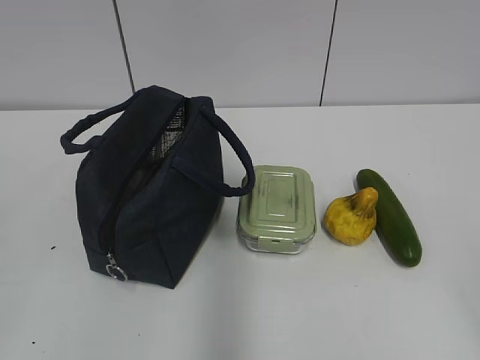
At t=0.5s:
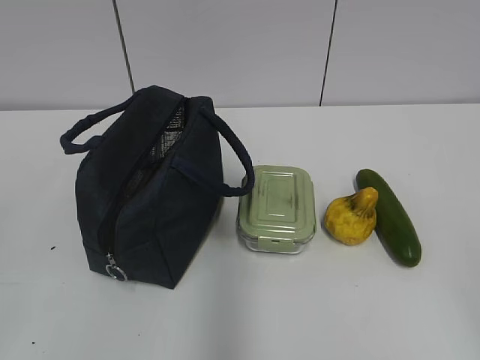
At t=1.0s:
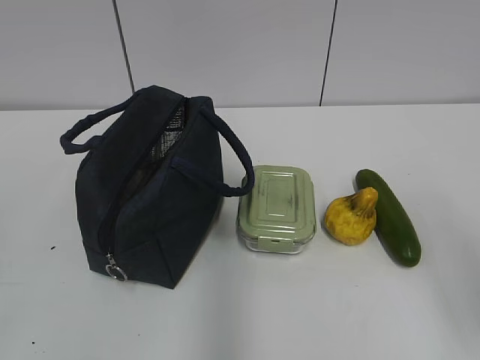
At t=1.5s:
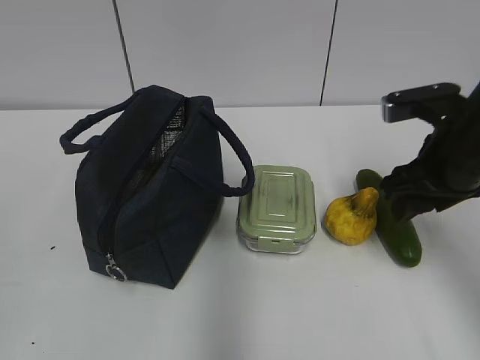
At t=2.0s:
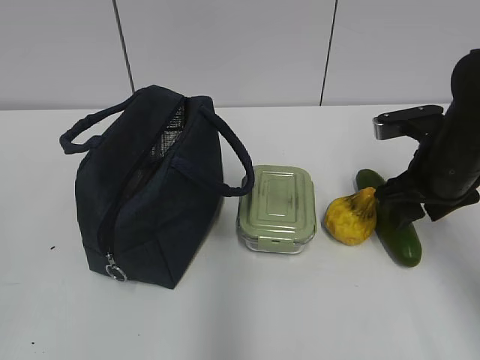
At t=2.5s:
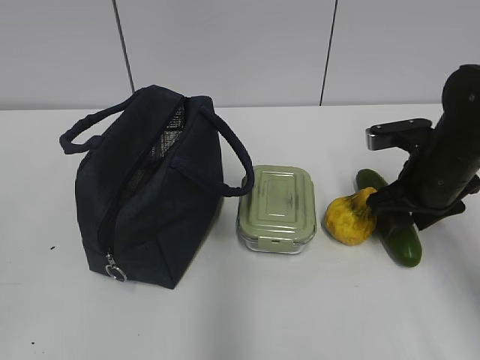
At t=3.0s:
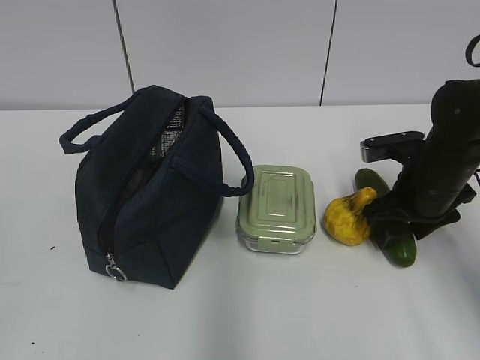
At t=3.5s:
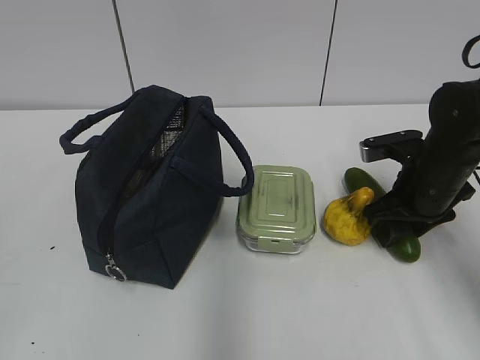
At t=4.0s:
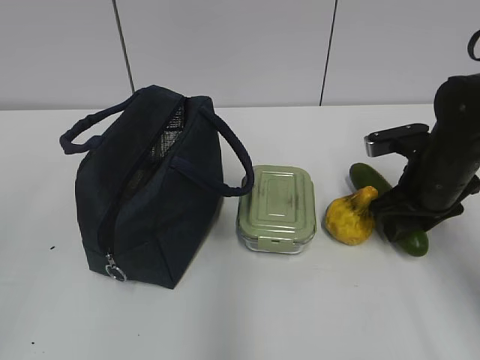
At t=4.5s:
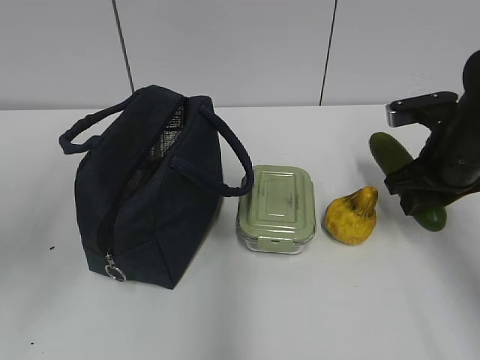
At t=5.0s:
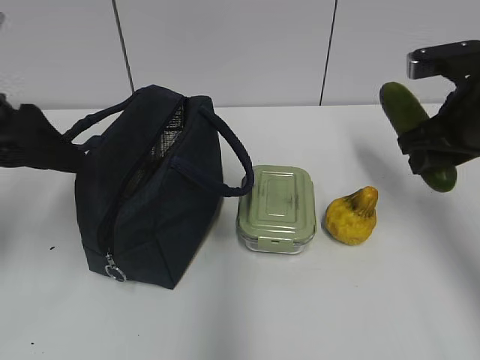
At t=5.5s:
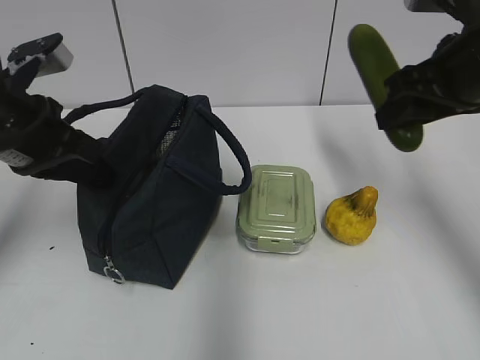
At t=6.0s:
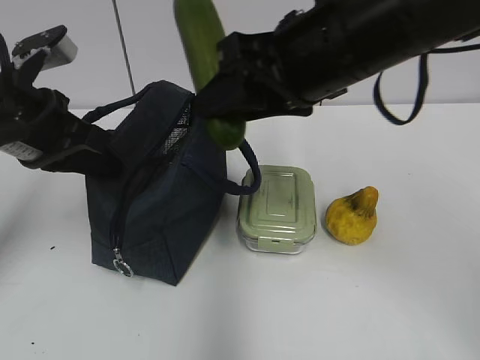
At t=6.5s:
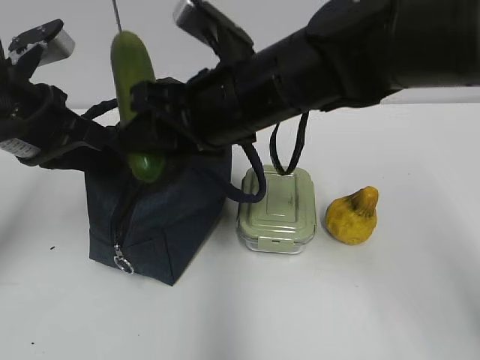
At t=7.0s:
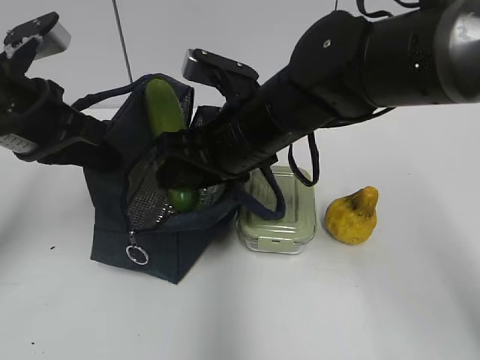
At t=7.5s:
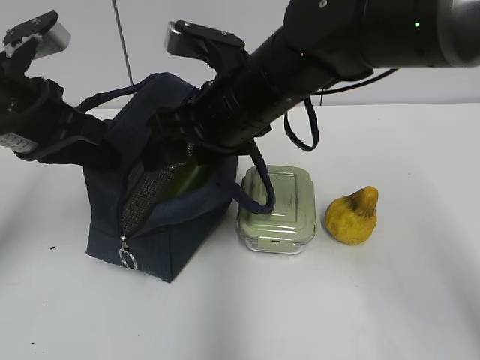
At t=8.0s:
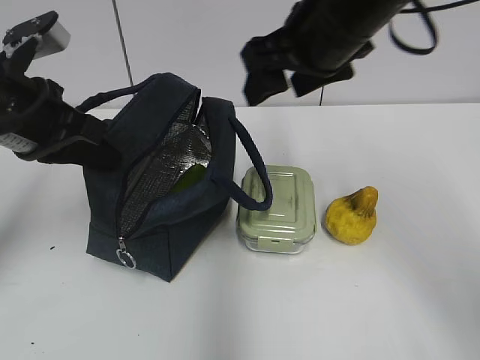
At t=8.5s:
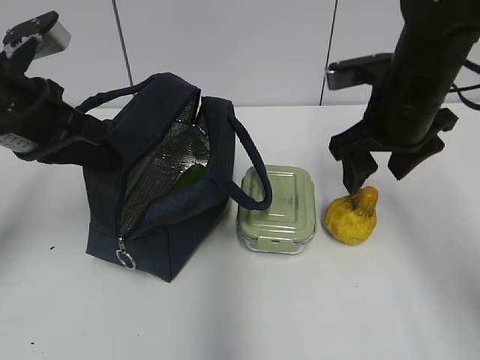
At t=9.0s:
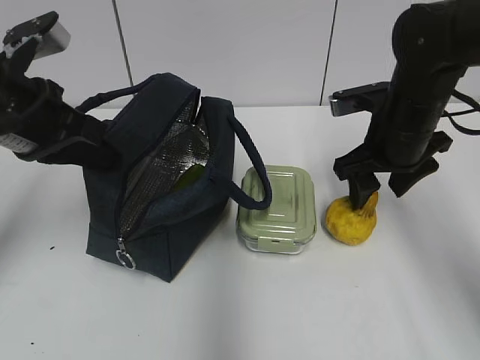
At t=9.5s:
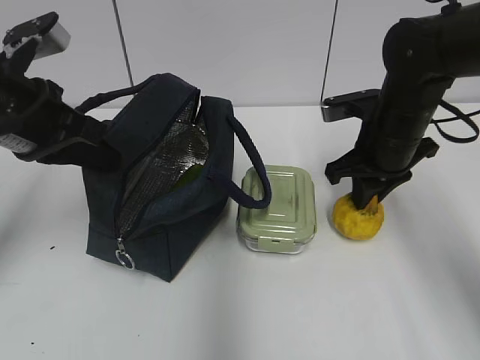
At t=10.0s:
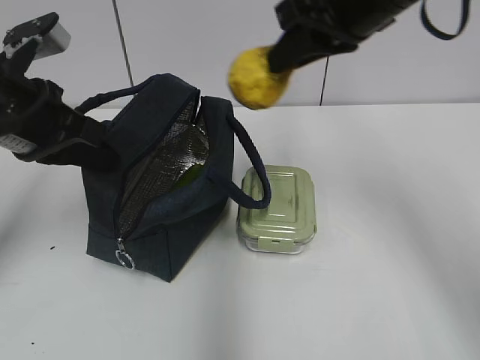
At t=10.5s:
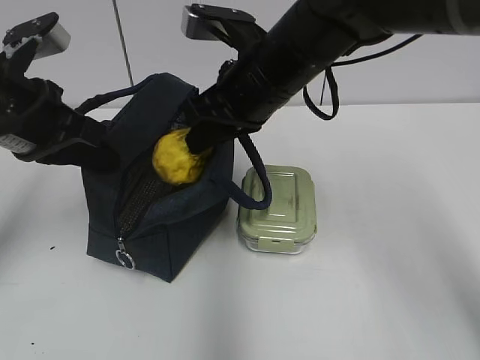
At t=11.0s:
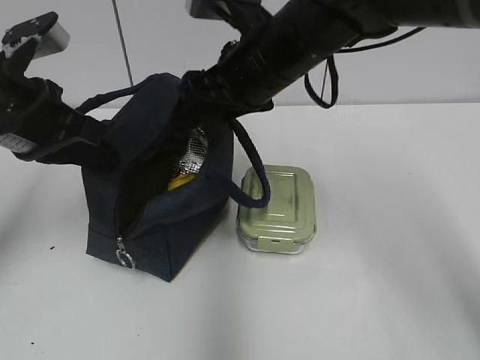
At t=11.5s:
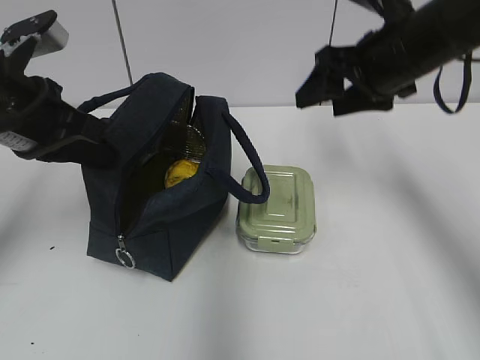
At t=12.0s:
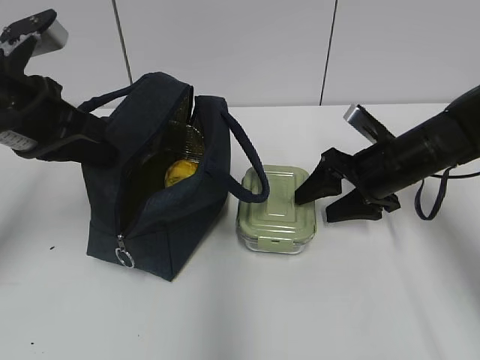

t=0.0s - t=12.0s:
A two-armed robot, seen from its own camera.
Step, t=0.0s - t=3.5s: Grab the cucumber with your right hand.
Step, t=4.0s - t=5.5s: Grab the lunch bag with your left hand.
Step, t=6.0s - t=7.5s: Place it into the bag with your right hand.
Step, t=8.0s - t=9.0s: Grab the pear with your right hand.
Step, t=9.5s - t=10.5s: Place it into the bag with your right hand.
t=2.0s - t=4.0s: There are only small adjustments of the grippers.
t=4.0s - t=6.0s: The left gripper is displaced forward by about 30 cm, and closes up. Meanwhile the right gripper shifts some 25 cm upward and to the left.
t=6.0s - t=8.0s: The right gripper travels forward by approximately 5 cm, and reaches about 10 cm downward, then returns.
t=8.0s - t=10.0s: The right gripper goes downward and returns, some 15 cm each way, and closes its fingers.
t=10.0s - t=12.0s: The right gripper moves downward and to the right, approximately 25 cm, and opens its fingers.

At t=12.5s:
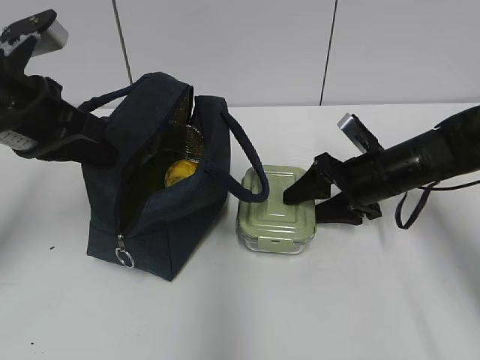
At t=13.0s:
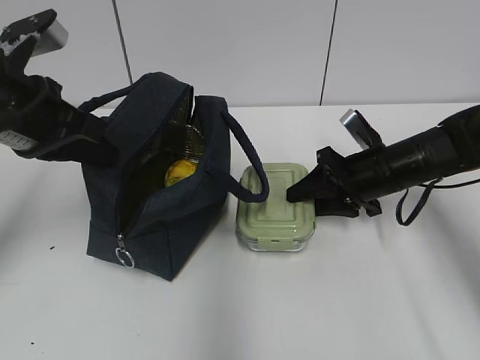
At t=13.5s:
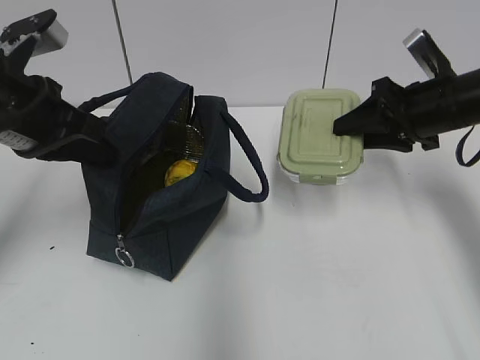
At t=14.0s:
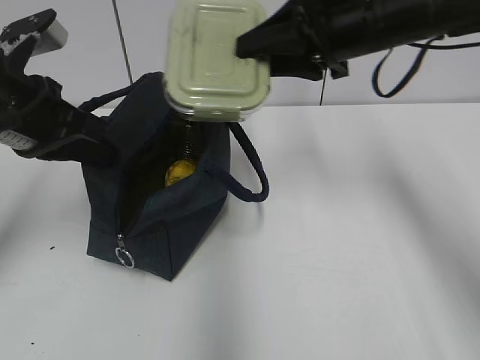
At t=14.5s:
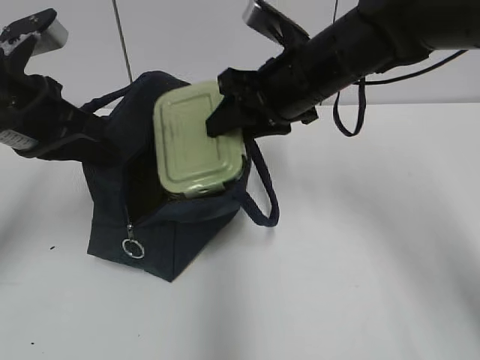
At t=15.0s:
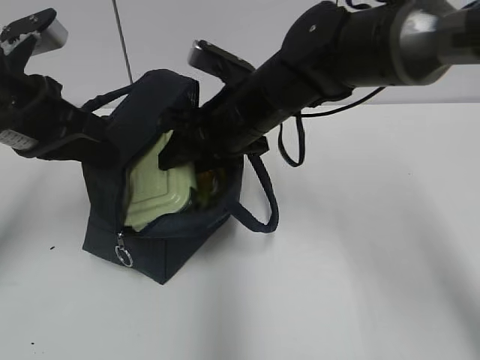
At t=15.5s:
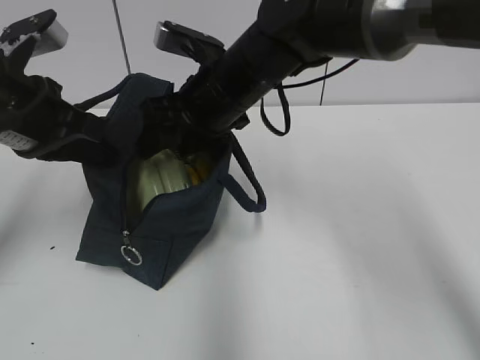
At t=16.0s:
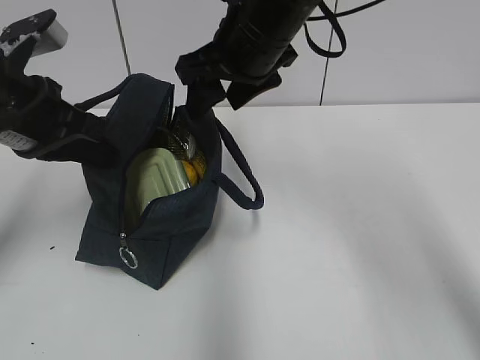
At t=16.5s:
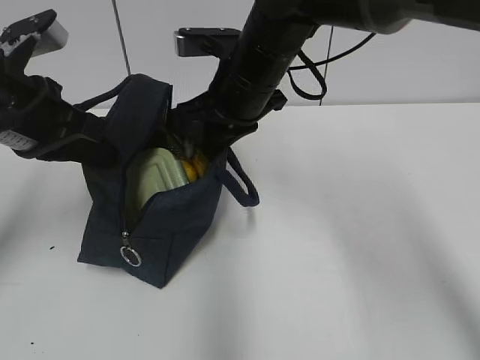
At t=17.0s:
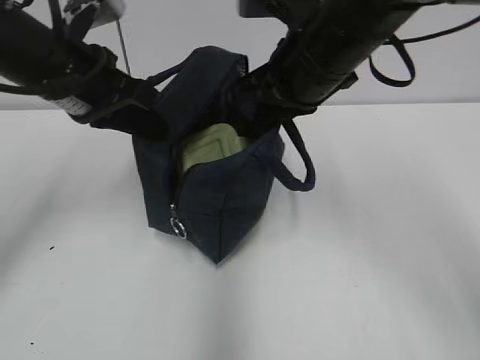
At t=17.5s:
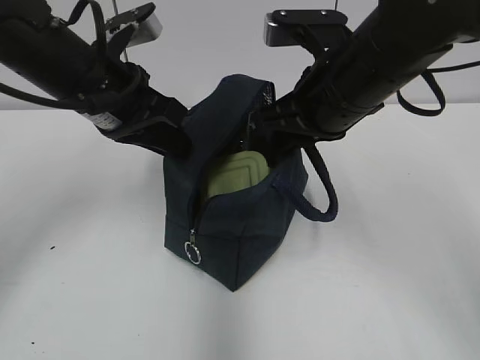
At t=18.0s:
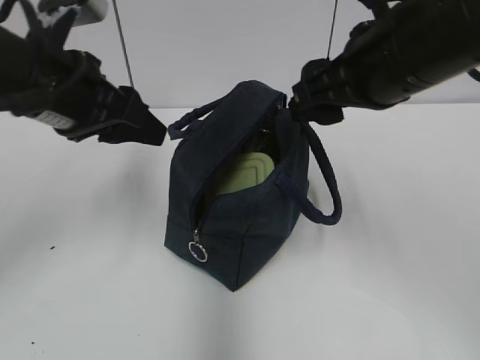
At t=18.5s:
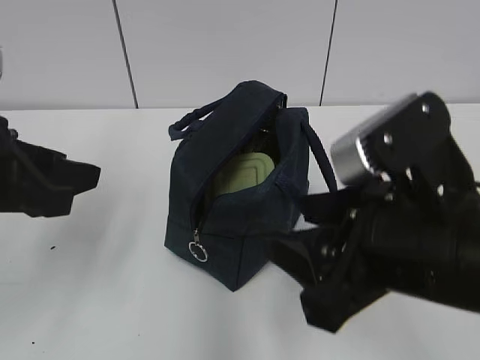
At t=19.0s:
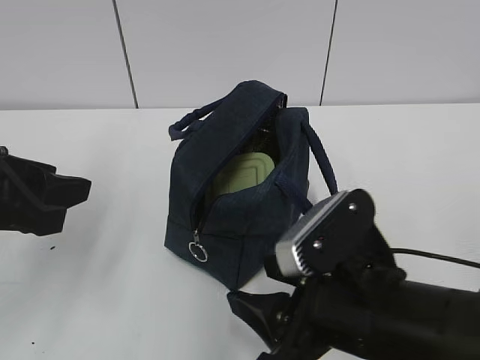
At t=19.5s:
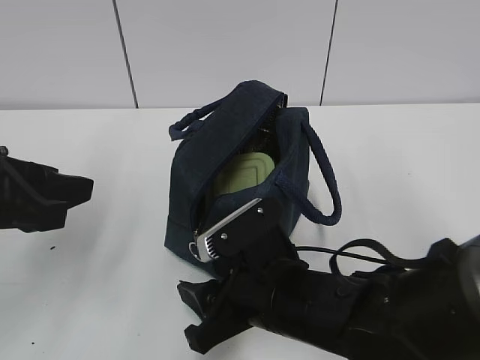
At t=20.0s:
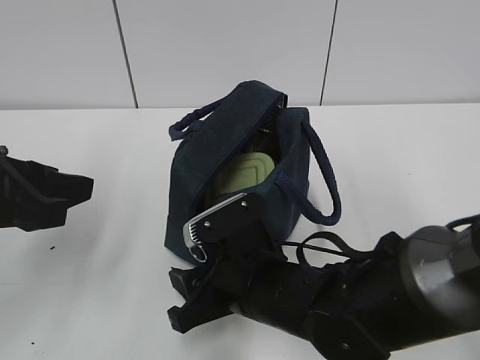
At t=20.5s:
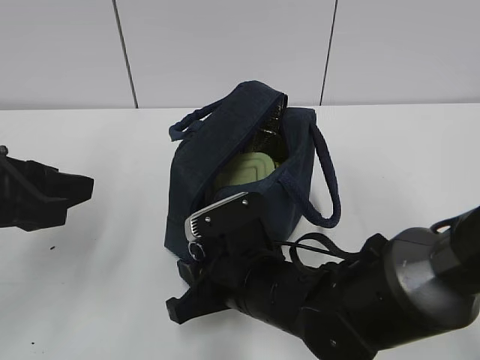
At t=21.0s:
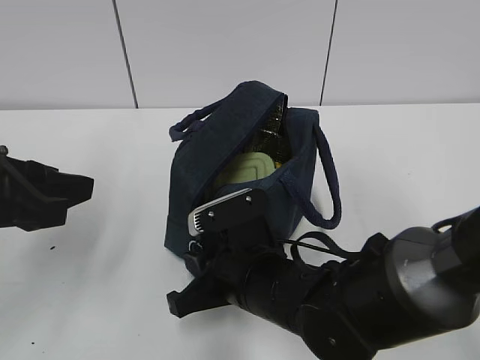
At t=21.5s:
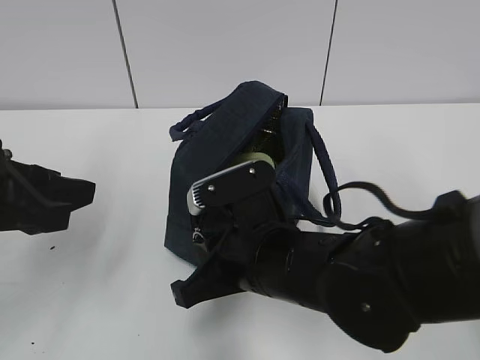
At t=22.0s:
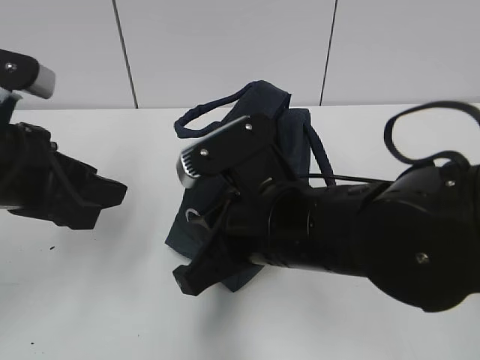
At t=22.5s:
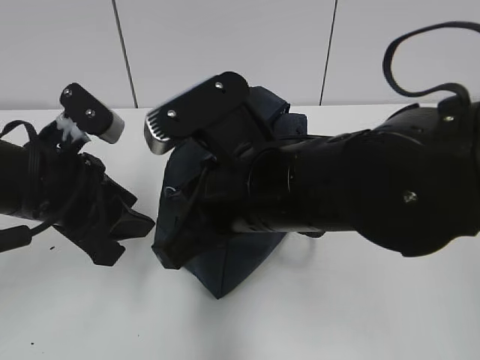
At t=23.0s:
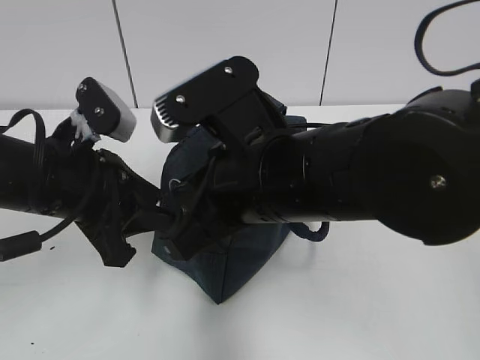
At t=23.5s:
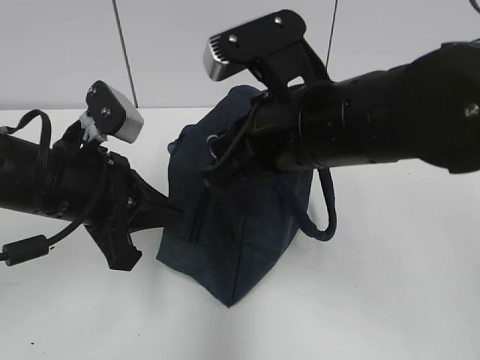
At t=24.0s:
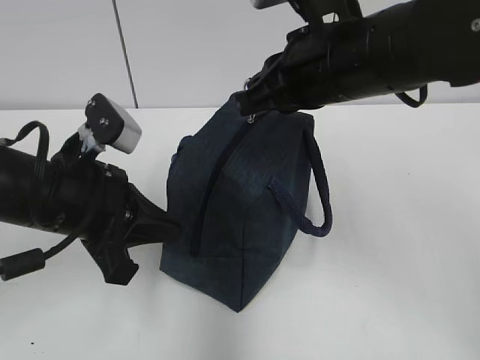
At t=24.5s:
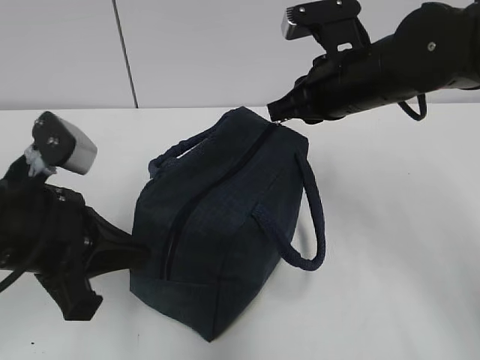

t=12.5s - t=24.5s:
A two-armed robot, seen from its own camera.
Step, t=16.0s - t=16.5s: Grab the lunch bag with your right hand.
Step, t=18.0s - t=23.0s: Grab the lunch bag with your left hand.
t=12.5s - t=14.5s: The right gripper moves upward and to the left, approximately 20 cm, and closes up.
t=14.5s - t=16.5s: The right gripper heads to the left, covering about 5 cm, reaches approximately 5 cm upward, then returns, and closes.
t=16.5s - t=18.5s: The left gripper is displaced backward by about 10 cm, and opens its fingers. The right gripper shifts some 25 cm backward, and opens.
t=18.5s - t=20.5s: The right gripper shifts about 20 cm downward, to the left and forward, and closes.
t=20.5s - t=22.5s: The right gripper travels upward by some 15 cm, and closes, while the left gripper heads forward, covering approximately 5 cm.
t=22.5s - t=24.5s: The right gripper travels forward and to the right by about 15 cm; the left gripper heads backward, covering some 5 cm, and closes up.

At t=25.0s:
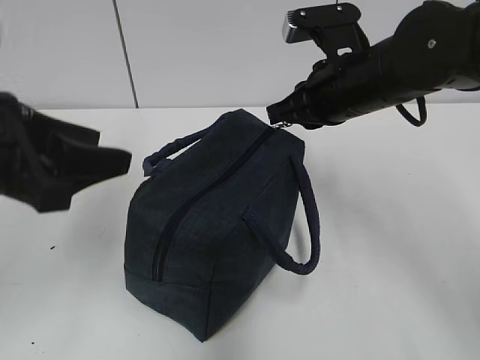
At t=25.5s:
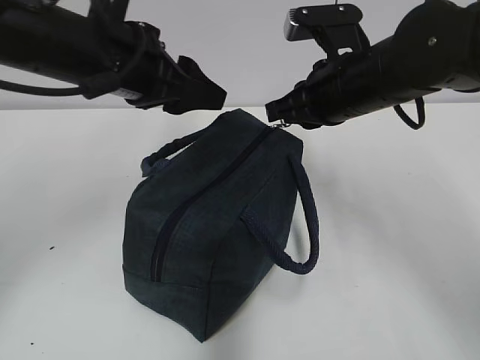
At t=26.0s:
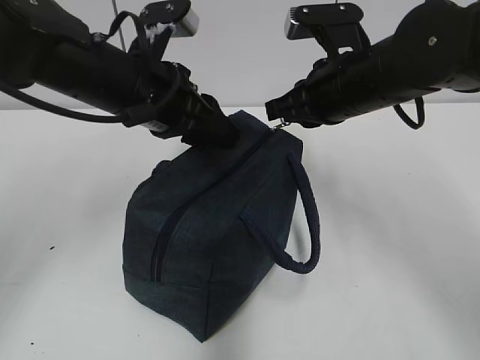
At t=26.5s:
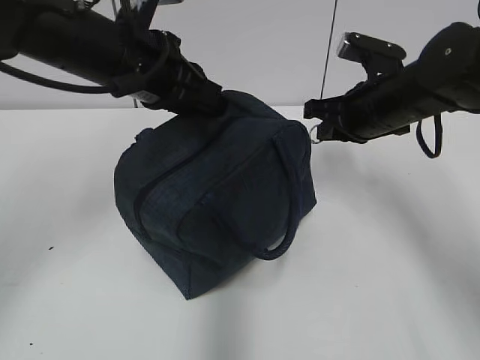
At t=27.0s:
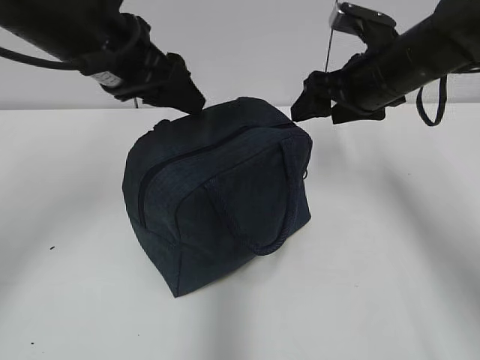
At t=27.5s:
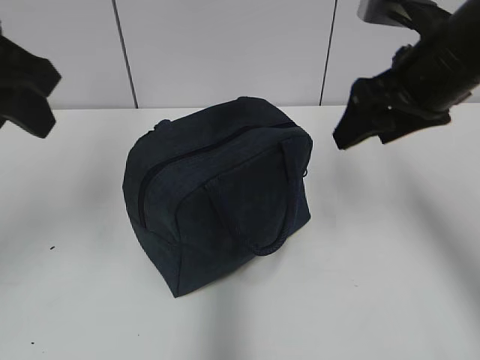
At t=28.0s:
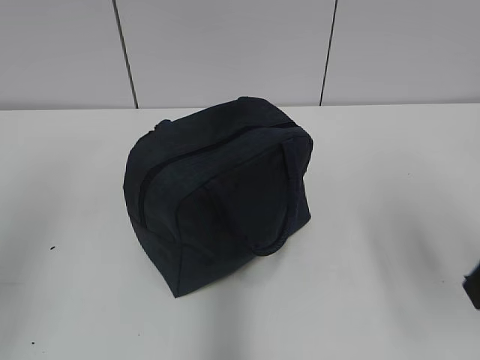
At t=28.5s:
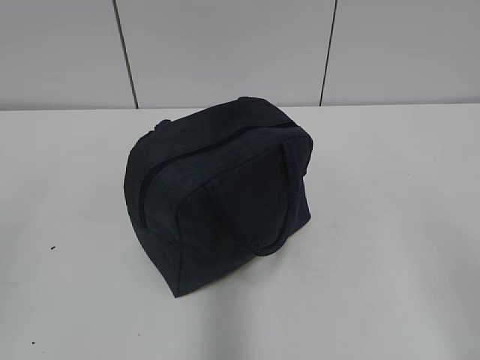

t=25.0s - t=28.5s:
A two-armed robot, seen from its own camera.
Step, t=25.0s - t=26.5s: Grab the lunch bag with your left hand.
t=25.0s - t=27.0s: The left gripper shifts about 15 cm forward and to the right, and closes, then reopens; the right gripper travels to the right by roughly 5 cm, and opens its fingers.
t=27.0s - t=28.5s: The left gripper shifts approximately 35 cm backward and to the left, and closes; the right gripper goes roughly 35 cm backward.
